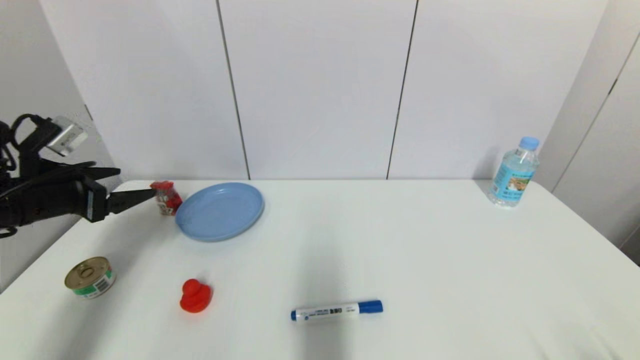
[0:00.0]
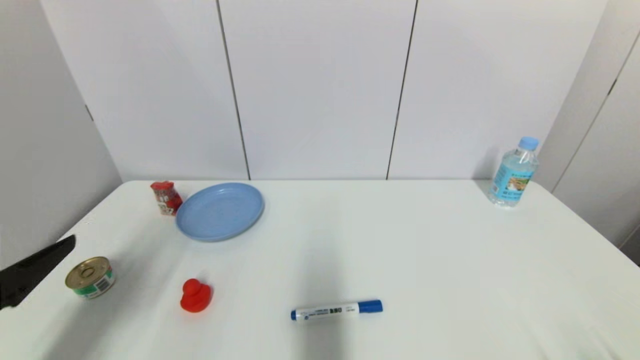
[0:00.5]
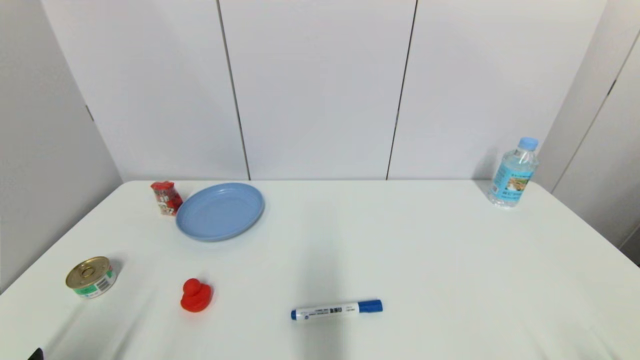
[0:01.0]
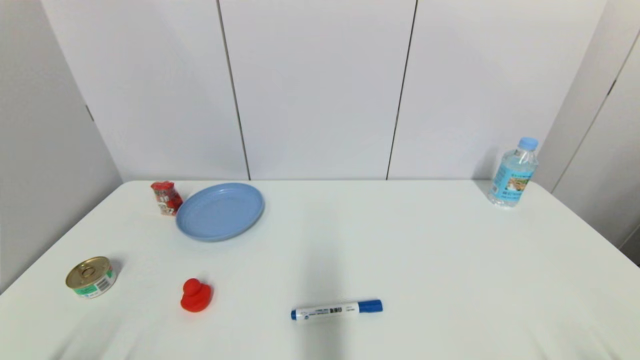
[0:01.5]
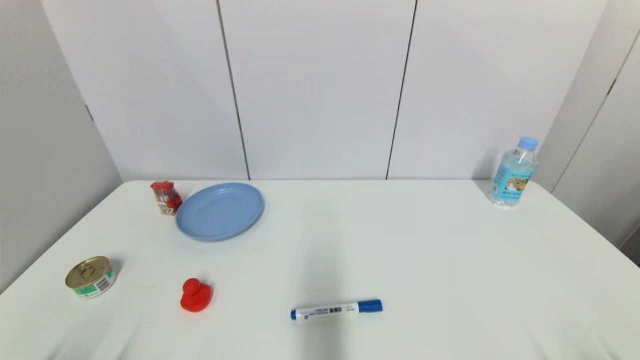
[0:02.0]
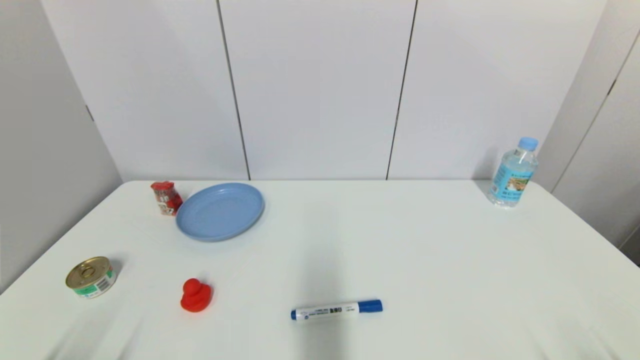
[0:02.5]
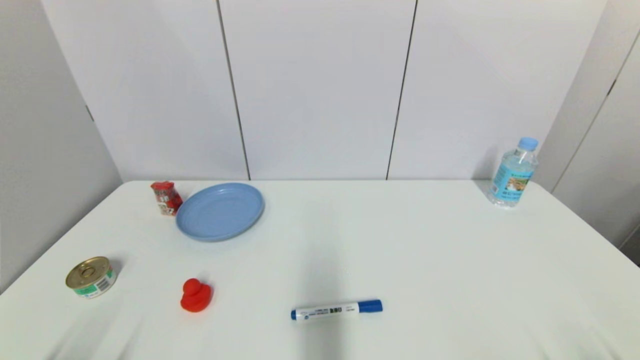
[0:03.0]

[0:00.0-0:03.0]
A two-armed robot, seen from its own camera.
0:00.0 to 0:01.5: The left gripper travels backward and downward by some 30 cm.
